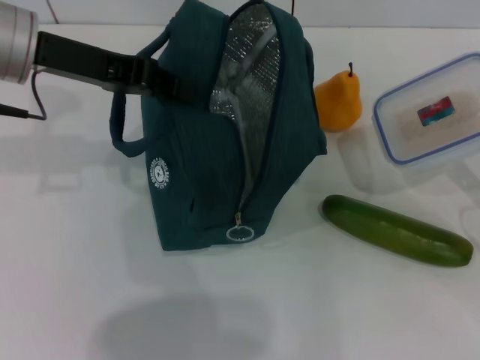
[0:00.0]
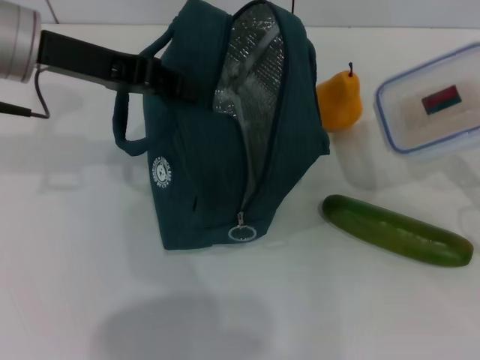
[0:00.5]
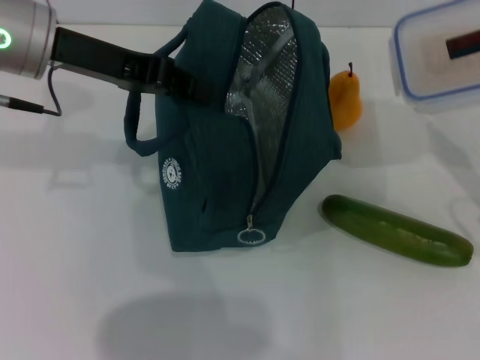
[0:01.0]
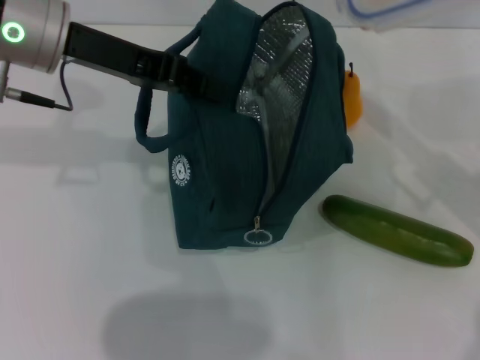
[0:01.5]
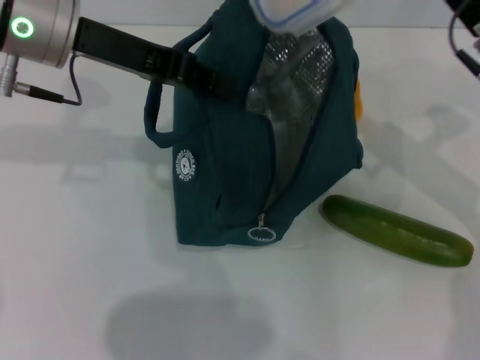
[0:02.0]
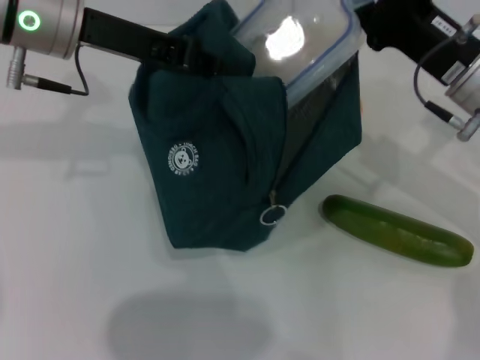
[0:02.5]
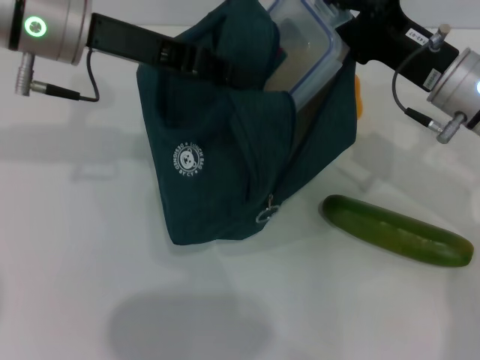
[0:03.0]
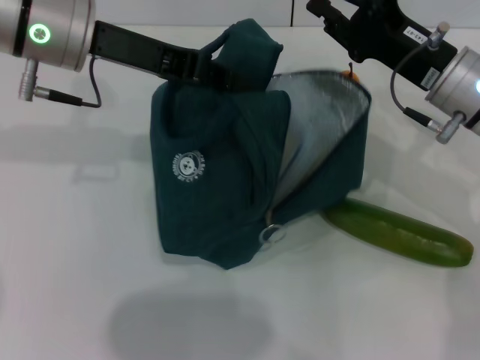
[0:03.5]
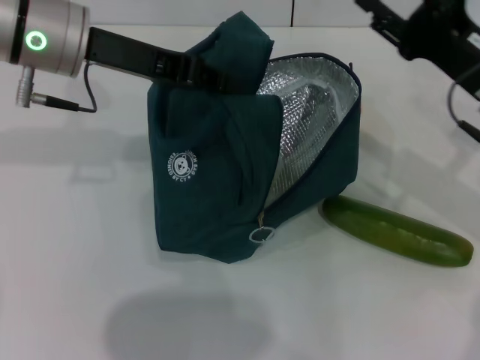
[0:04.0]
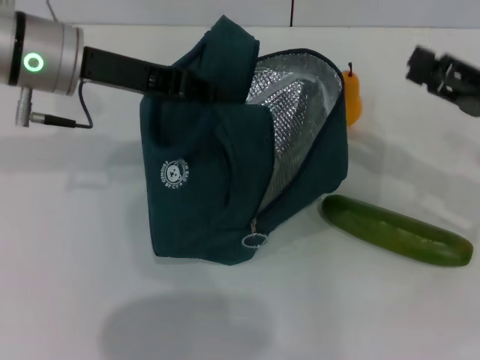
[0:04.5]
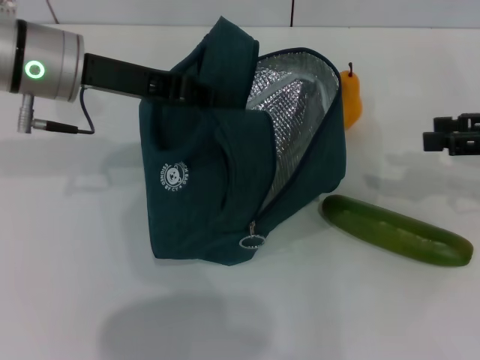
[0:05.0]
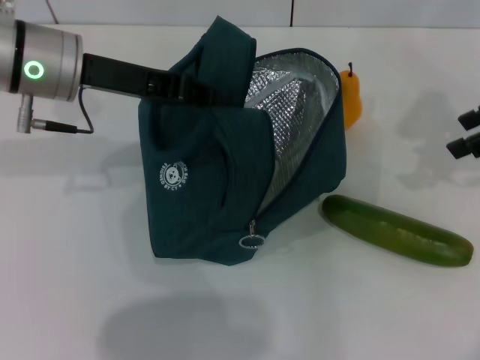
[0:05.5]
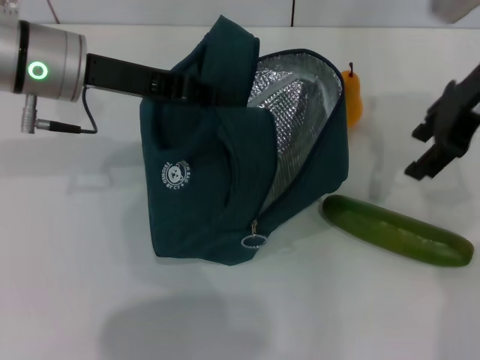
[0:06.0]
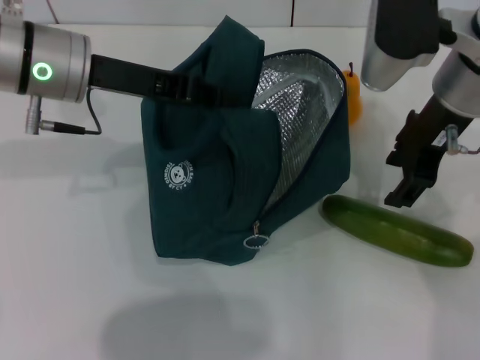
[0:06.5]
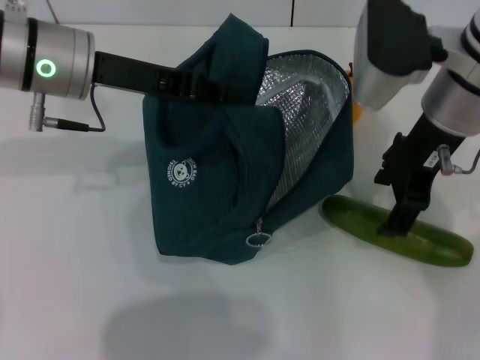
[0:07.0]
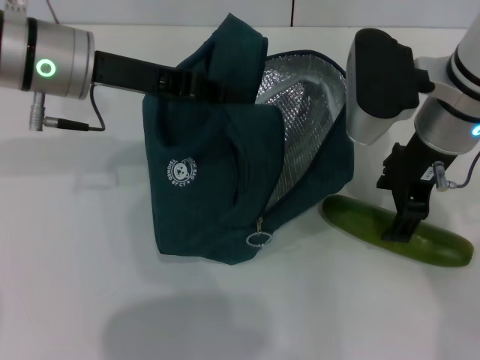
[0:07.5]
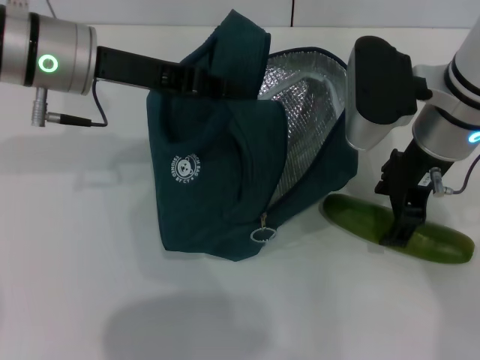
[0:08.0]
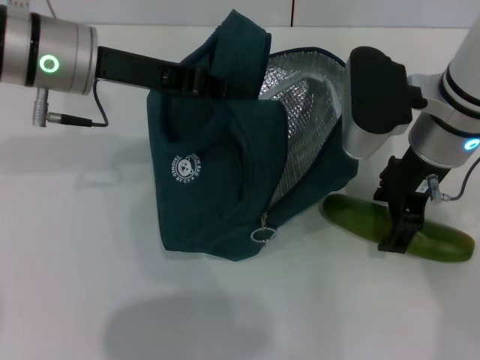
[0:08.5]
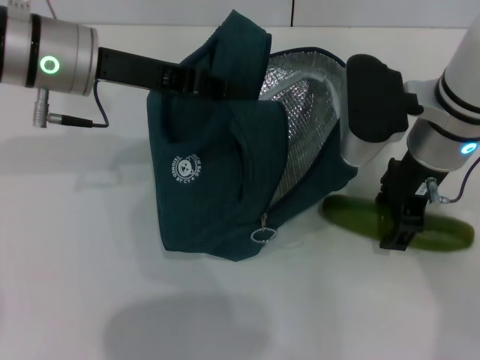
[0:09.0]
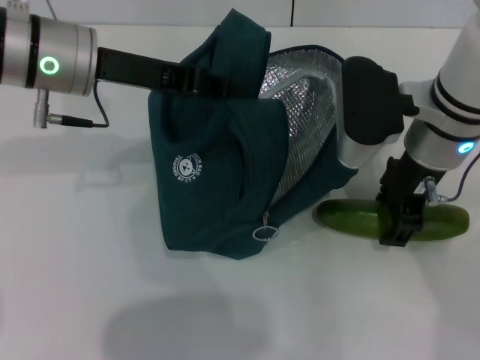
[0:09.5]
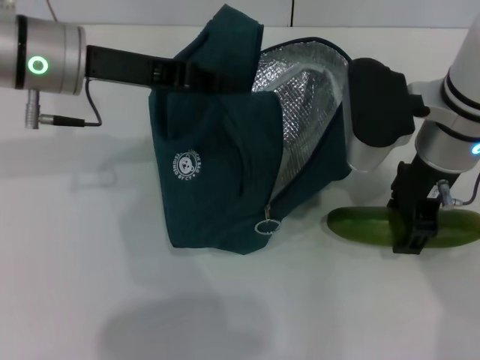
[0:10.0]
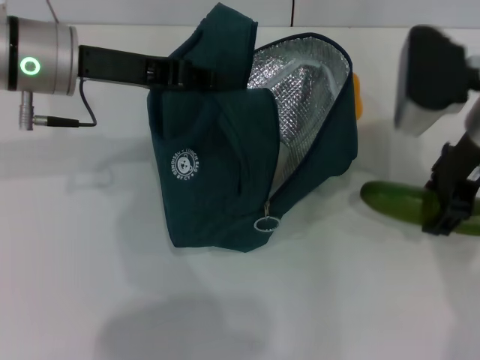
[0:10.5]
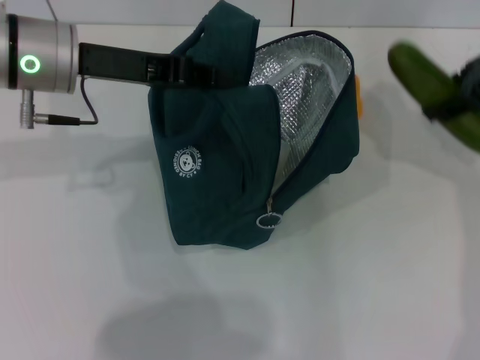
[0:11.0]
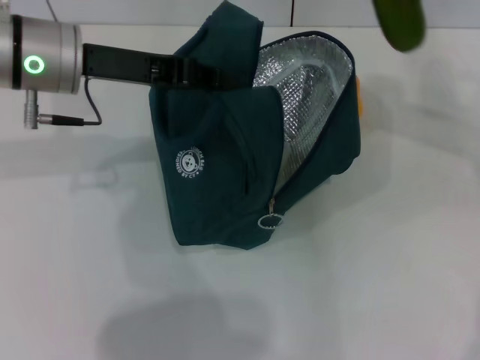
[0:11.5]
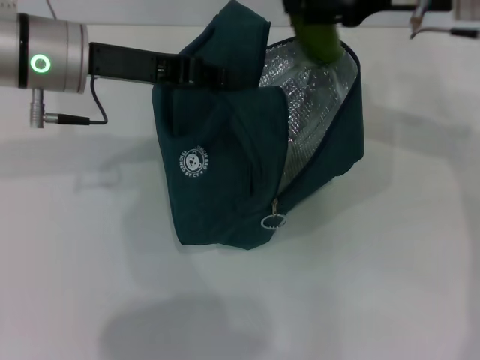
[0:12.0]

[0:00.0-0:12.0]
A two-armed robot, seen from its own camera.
Step, 0:00.0 to 0:03.5: Place the lunch box into the lunch bag with your right hand.
Step, 0:04.0 to 0:09.0: Pick up the cucumber with your right hand.
0:00.0 to 0:02.0: The right gripper moves to the left, forward and upward, about 20 cm.
0:02.0 to 0:04.0: The right gripper opens up.
0:04.0 to 0:06.0: The right gripper moves upward, approximately 10 cm, and reaches about 10 cm to the right, then returns.
0:06.0 to 0:08.0: The right gripper shifts roughly 10 cm downward and to the left.
0:08.0 to 0:10.0: There are only small adjustments of the grippers.
0:10.0 to 0:12.0: The right gripper heads upward and forward, covering approximately 10 cm.

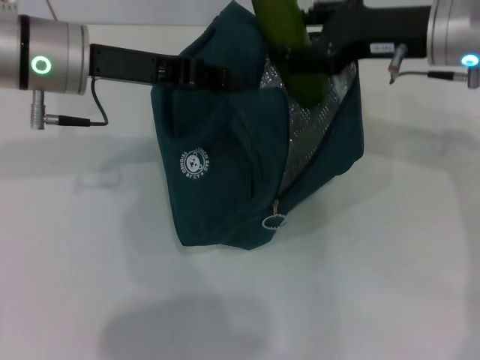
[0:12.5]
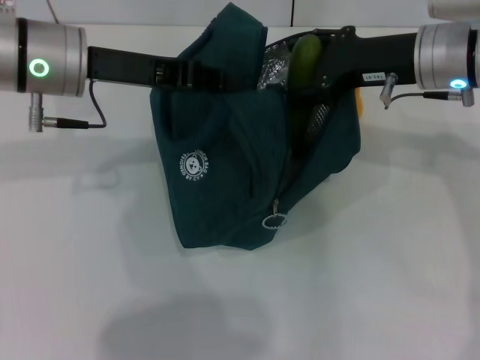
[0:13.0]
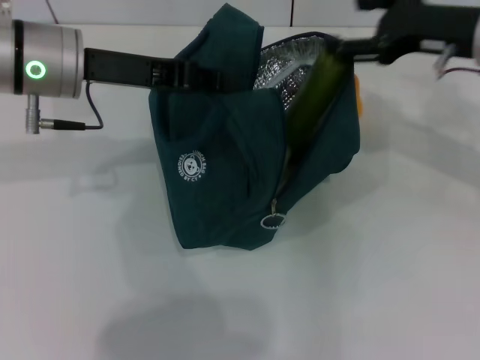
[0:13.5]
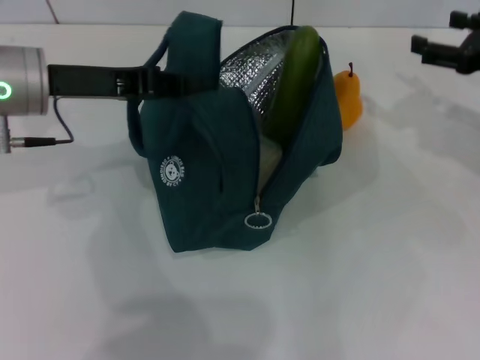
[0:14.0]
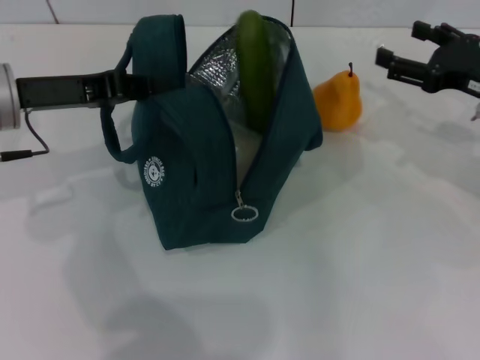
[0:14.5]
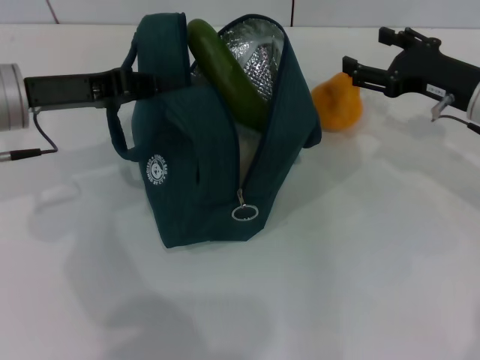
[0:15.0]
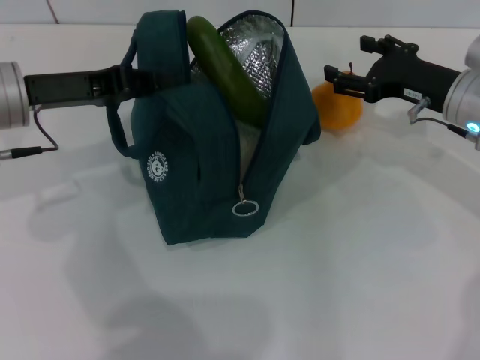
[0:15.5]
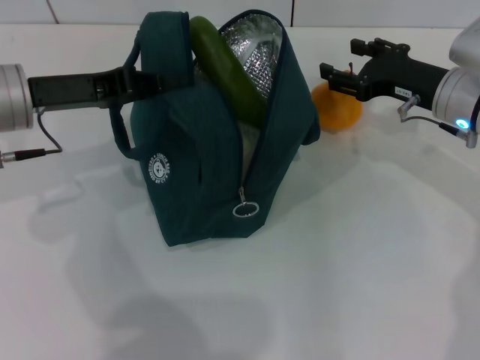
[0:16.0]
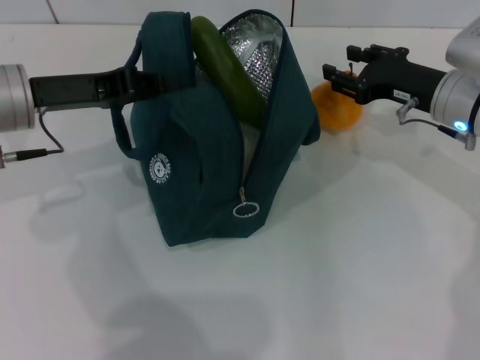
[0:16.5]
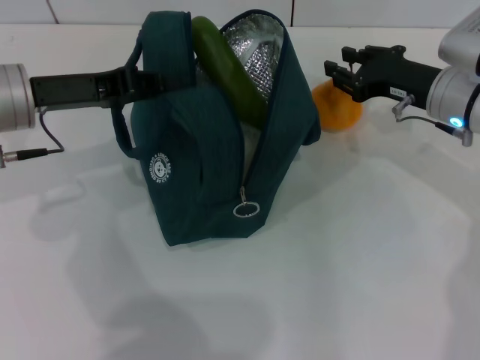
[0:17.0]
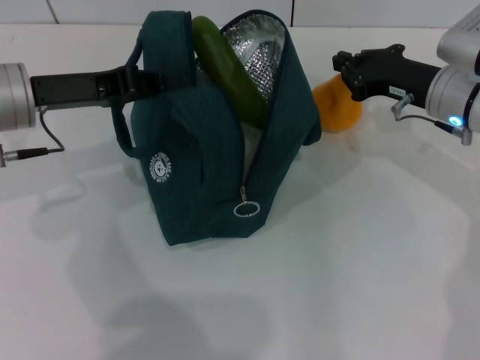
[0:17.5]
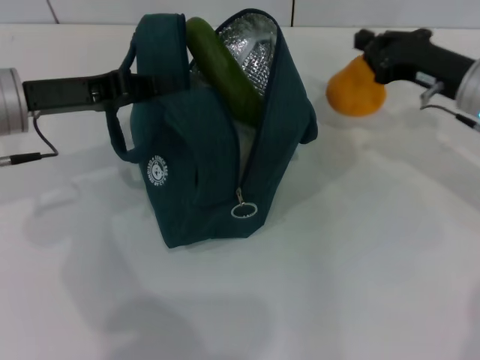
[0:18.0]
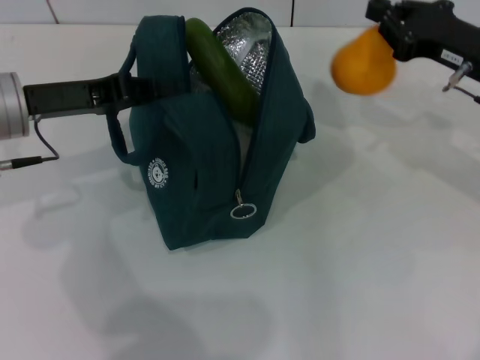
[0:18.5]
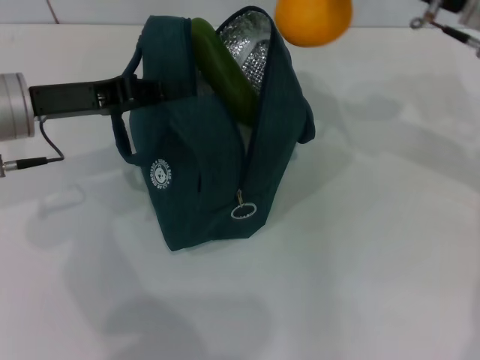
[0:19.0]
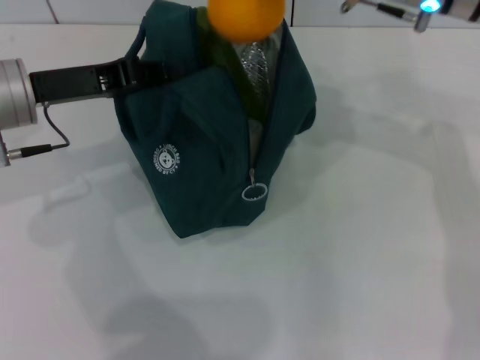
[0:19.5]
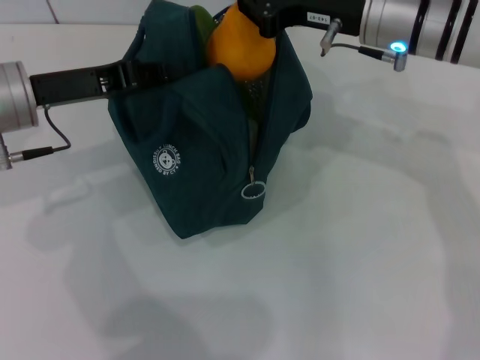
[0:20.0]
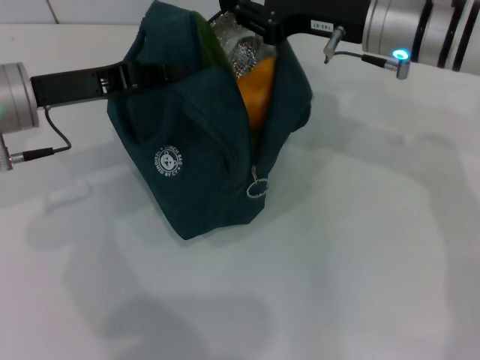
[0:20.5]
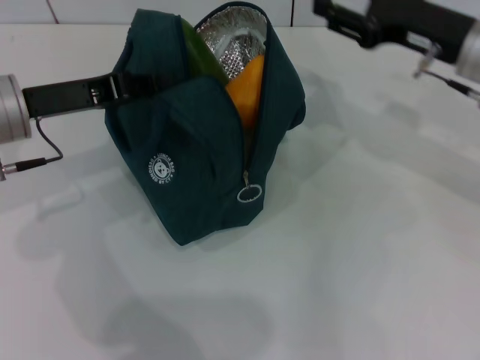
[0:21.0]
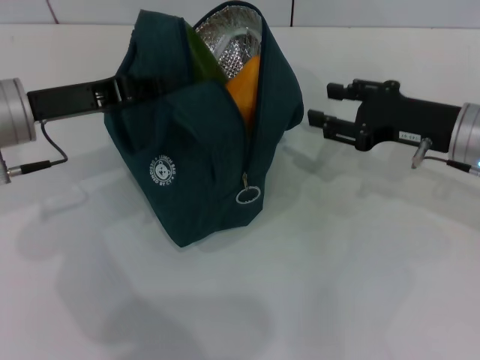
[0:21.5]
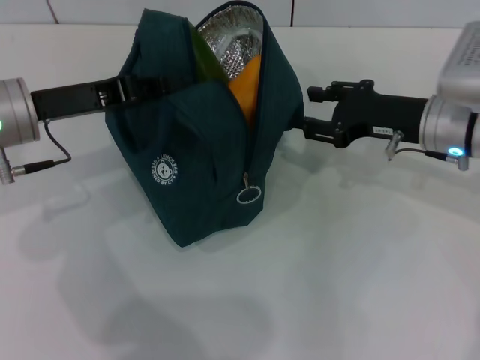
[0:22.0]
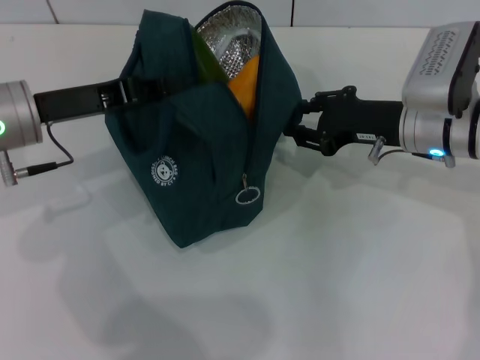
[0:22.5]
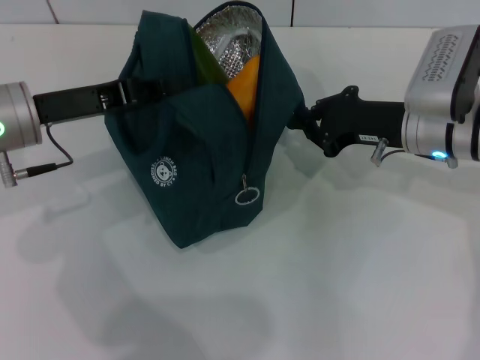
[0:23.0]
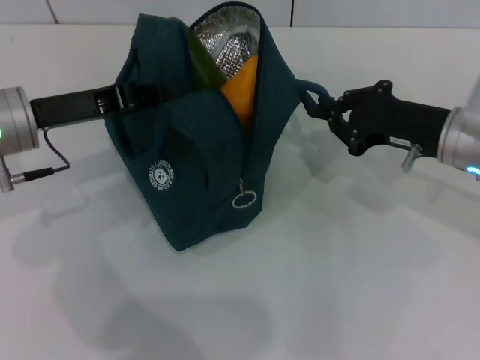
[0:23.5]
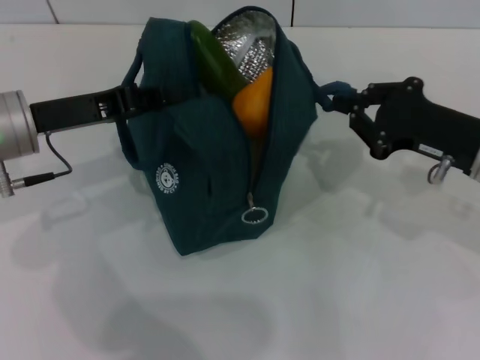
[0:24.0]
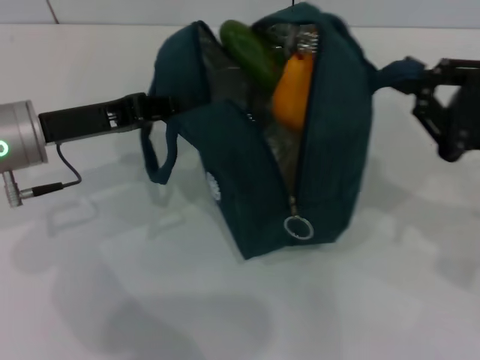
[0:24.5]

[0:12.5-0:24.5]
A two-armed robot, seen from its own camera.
Step, 0:14.0 to 0:17.5: Grab the pear with your right hand.
0:12.5 to 0:14.5: The right gripper heads to the right and downward, covering approximately 10 cm. The left gripper is displaced to the left by about 5 cm.
0:14.5 to 0:16.5: The right gripper is displaced to the left by approximately 5 cm, and closes up.
0:16.5 to 0:18.5: The right gripper changes place by about 5 cm, and closes.
0:18.5 to 0:20.5: The right gripper travels to the left by roughly 10 cm.
0:20.5 to 0:22.5: The right gripper goes roughly 10 cm downward, and opens up.
0:22.5 to 0:24.5: The right gripper is displaced backward and to the right by approximately 15 cm, and closes its fingers.

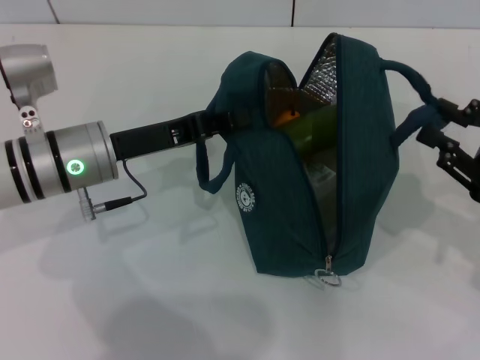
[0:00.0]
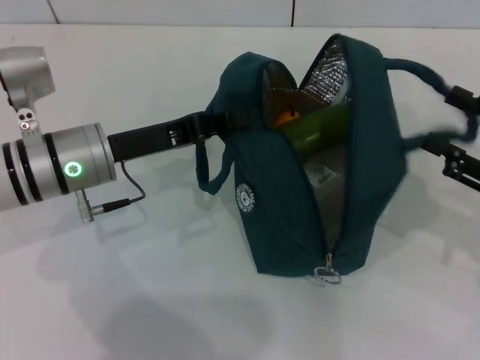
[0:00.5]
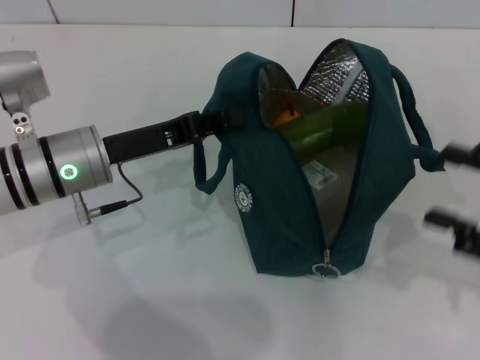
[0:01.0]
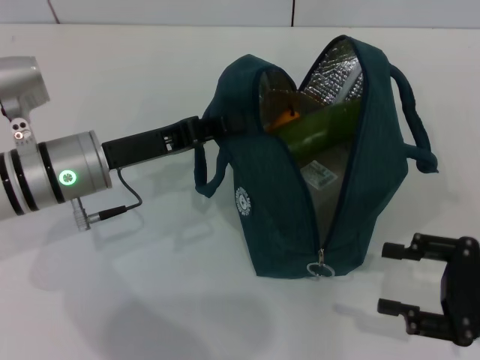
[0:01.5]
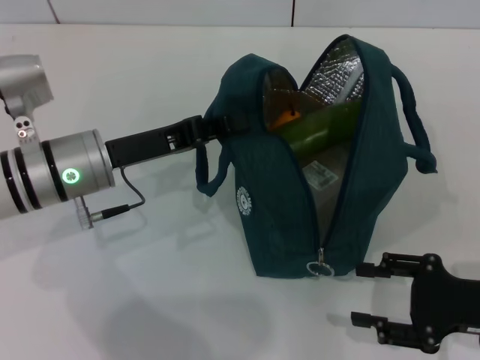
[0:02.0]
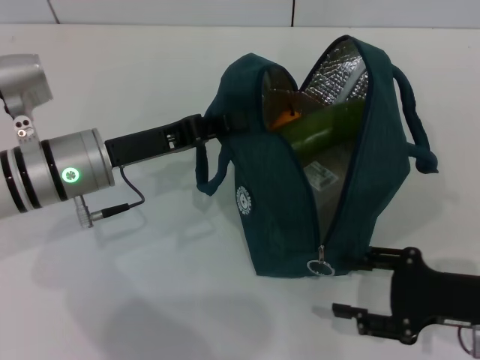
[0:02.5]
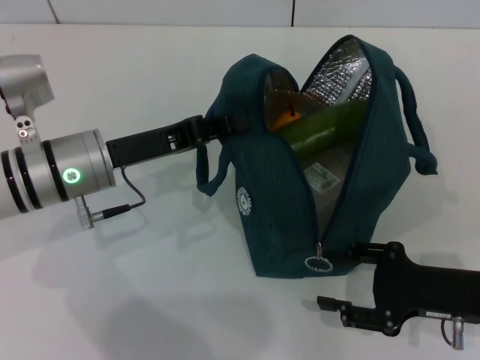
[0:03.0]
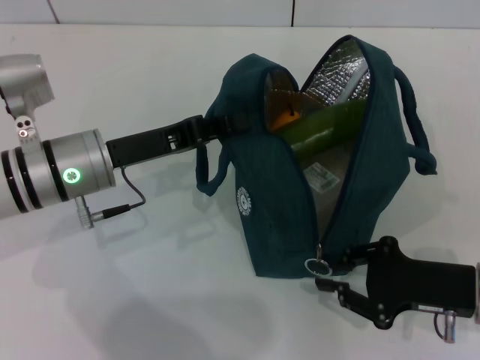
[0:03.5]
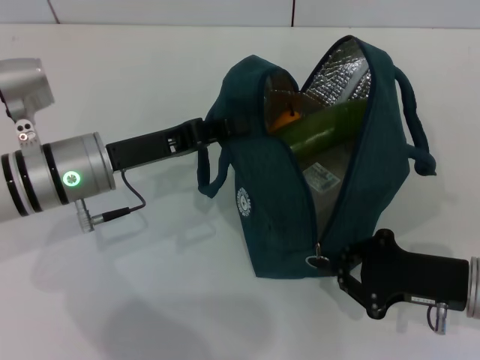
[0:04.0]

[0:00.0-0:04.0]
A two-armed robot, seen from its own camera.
0:00.0 to 0:02.0: The right gripper is displaced downward by approximately 5 cm, and opens its fingers.
0:02.0 to 0:04.0: The right gripper ends up some 5 cm from where it was, and closes.
